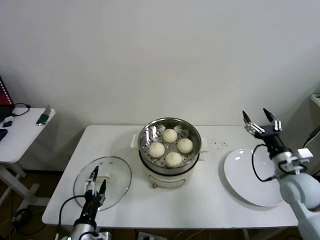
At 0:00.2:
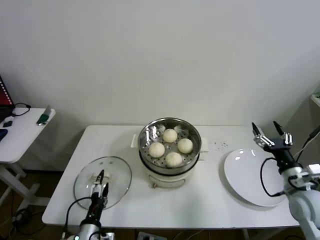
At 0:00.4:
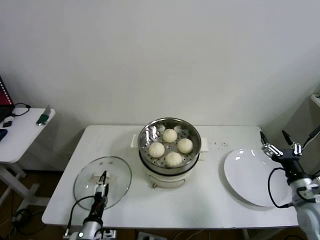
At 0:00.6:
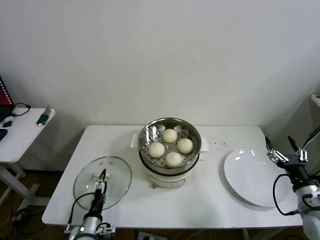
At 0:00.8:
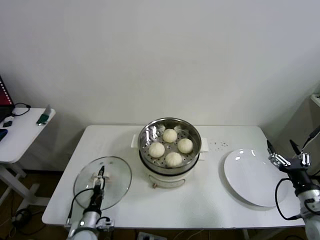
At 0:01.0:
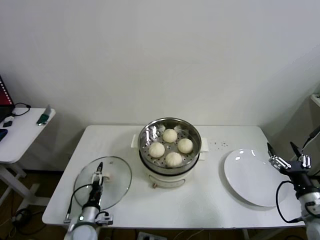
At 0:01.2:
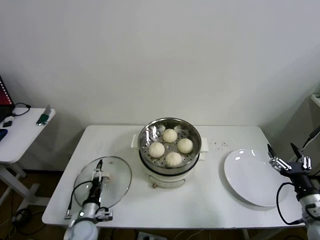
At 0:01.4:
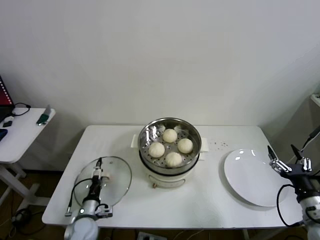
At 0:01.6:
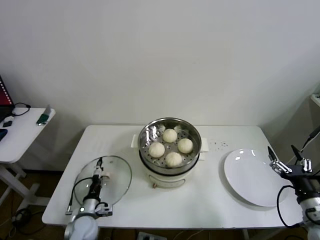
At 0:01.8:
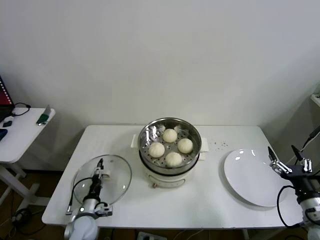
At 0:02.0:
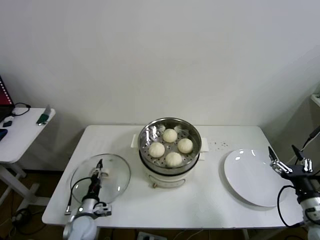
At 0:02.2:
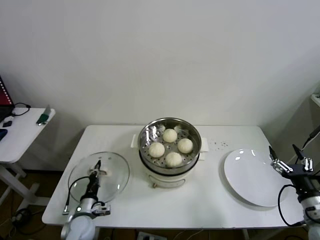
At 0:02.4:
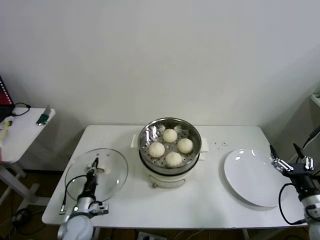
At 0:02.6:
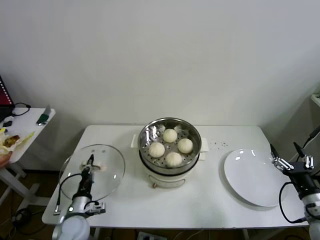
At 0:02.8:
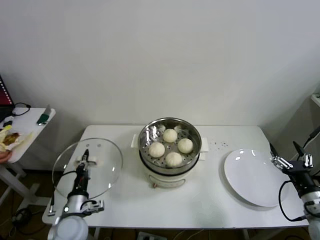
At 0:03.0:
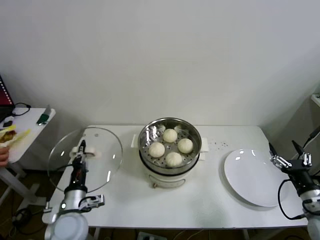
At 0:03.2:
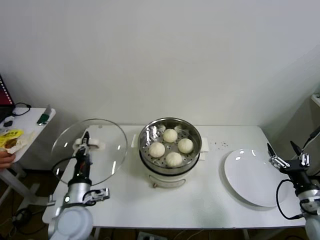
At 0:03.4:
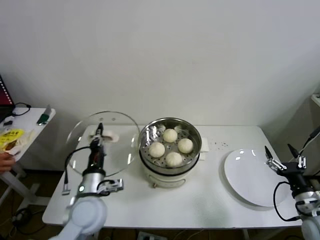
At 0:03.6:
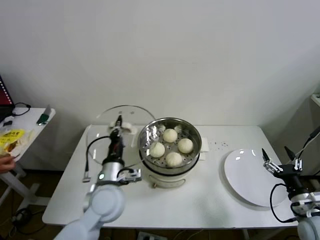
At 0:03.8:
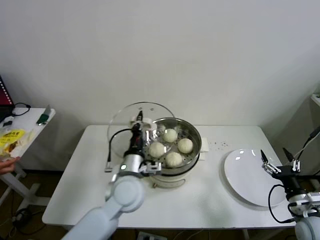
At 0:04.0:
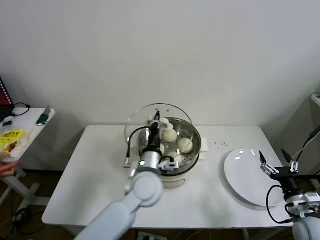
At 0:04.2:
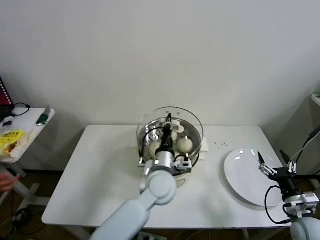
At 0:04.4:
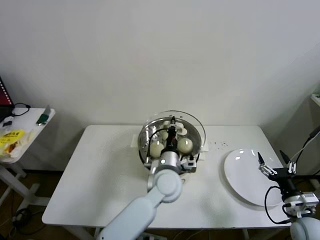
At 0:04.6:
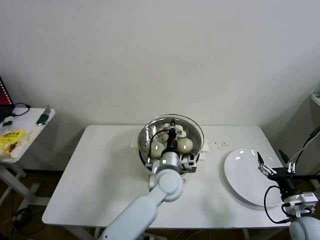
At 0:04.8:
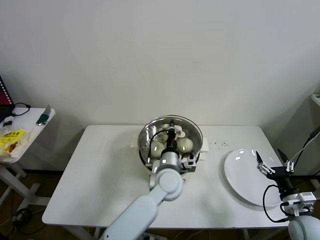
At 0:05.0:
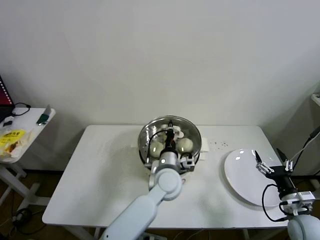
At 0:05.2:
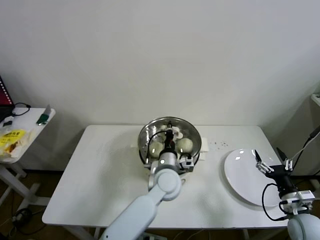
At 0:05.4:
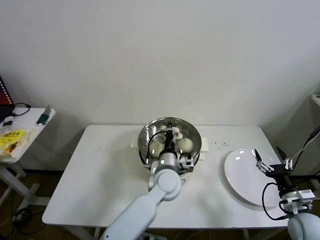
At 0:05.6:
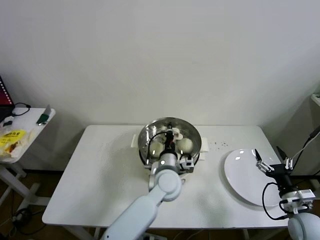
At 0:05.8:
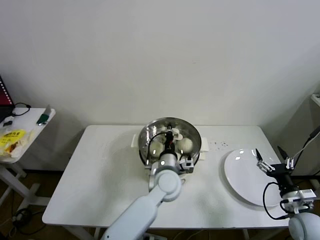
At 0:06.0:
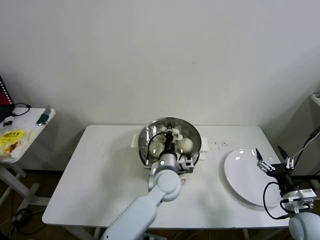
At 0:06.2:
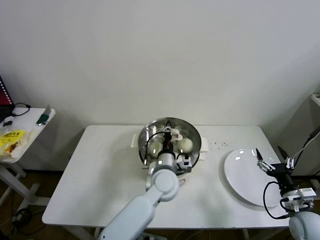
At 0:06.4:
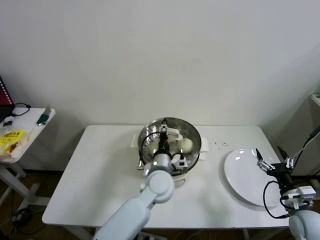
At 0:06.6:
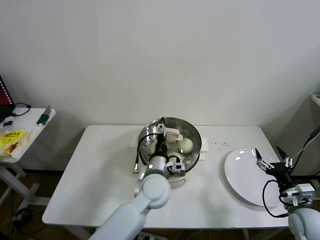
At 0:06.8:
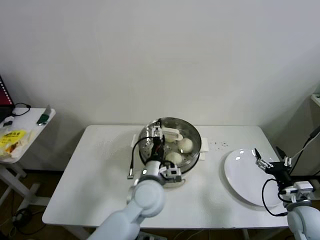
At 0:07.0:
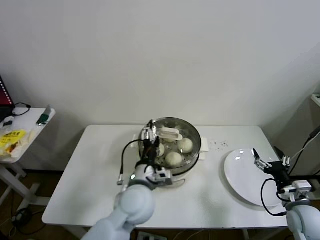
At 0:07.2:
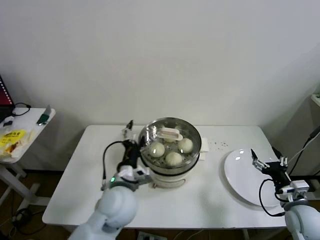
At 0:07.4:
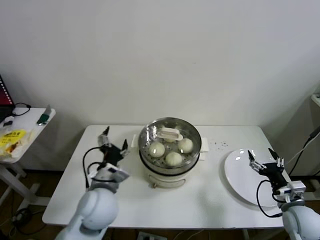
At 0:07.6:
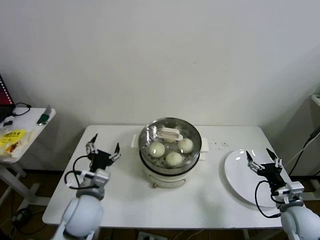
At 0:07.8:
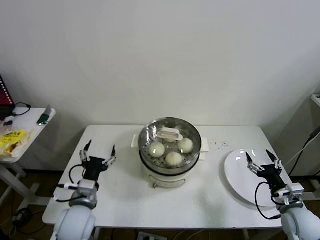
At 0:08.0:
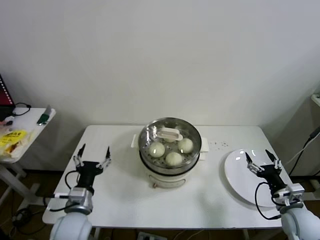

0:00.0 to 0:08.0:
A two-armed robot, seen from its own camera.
Step, 0:00.0 to 0:02.2: Grasp the pot lid with left gripper.
Step, 0:02.4 to 0:06.0: Place the pot lid on the steamer with left gripper.
0:00.0 to 0:01.6: The left gripper moves forward and downward, roughly 15 cm. Meanwhile the right gripper is displaced backward by roughly 15 cm.
0:01.6 to 0:03.2: The left gripper heads upward, covering roughly 15 cm, and closes.
0:03.2 to 0:04.8: The right gripper travels downward by approximately 5 cm, while the left gripper heads to the right and forward, covering about 30 cm.
0:04.8 to 0:06.4: The left gripper opens its fingers.
0:06.4 to 0:08.0: The left gripper shifts some 25 cm to the left and backward, and opens.
